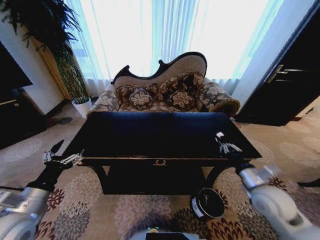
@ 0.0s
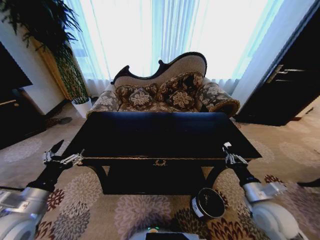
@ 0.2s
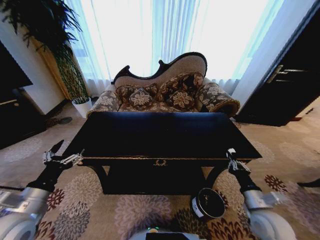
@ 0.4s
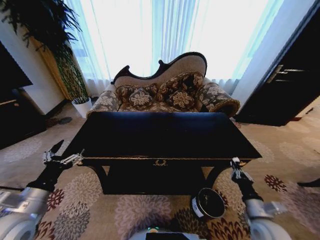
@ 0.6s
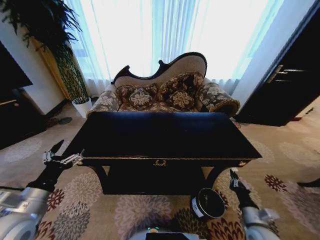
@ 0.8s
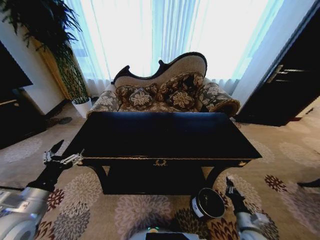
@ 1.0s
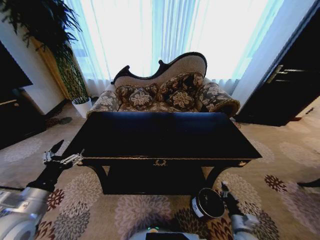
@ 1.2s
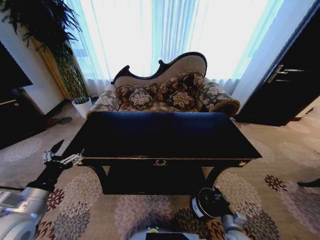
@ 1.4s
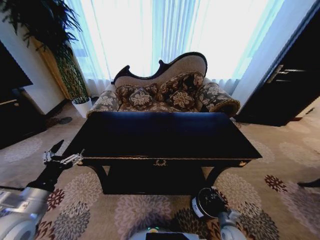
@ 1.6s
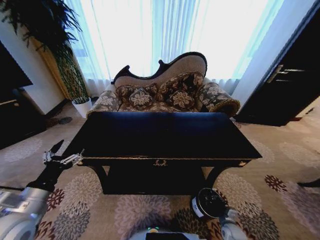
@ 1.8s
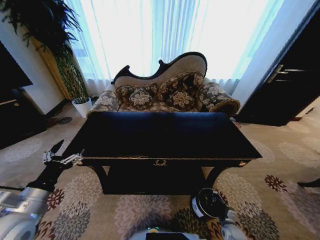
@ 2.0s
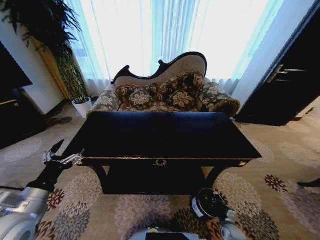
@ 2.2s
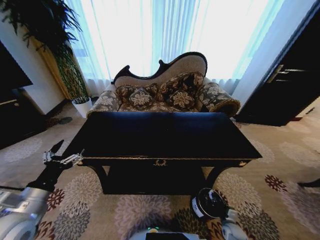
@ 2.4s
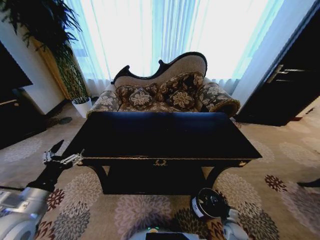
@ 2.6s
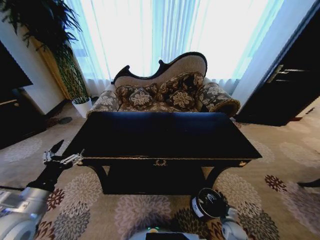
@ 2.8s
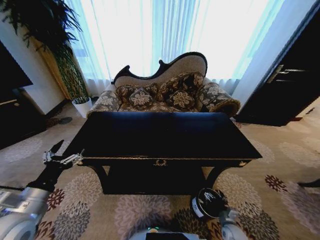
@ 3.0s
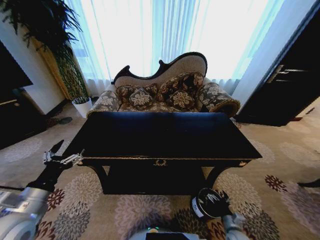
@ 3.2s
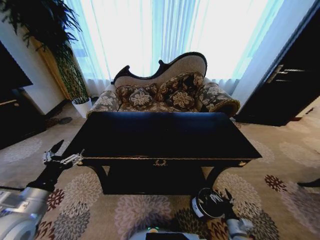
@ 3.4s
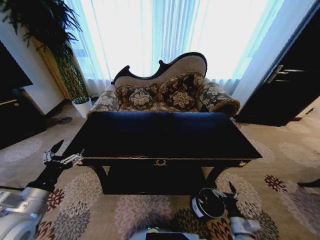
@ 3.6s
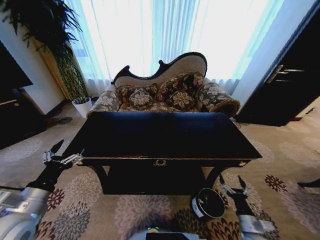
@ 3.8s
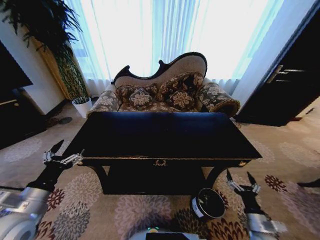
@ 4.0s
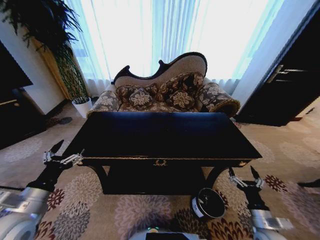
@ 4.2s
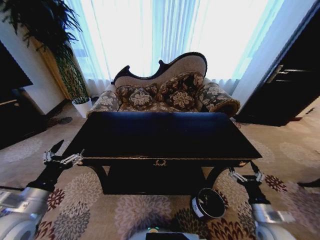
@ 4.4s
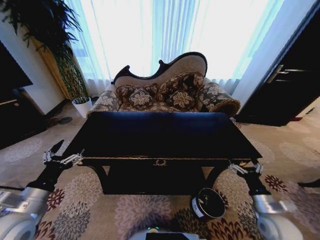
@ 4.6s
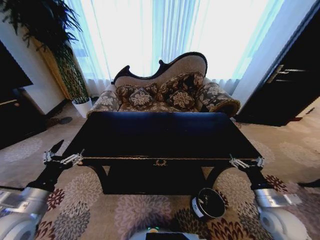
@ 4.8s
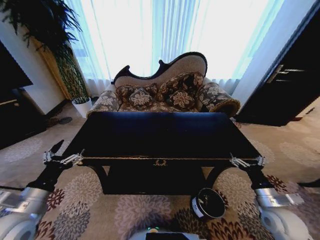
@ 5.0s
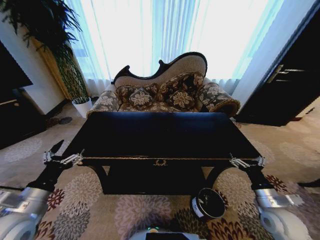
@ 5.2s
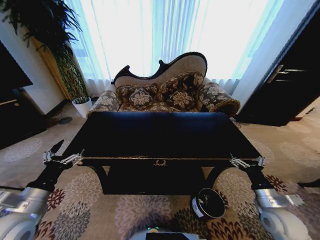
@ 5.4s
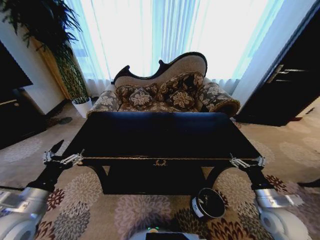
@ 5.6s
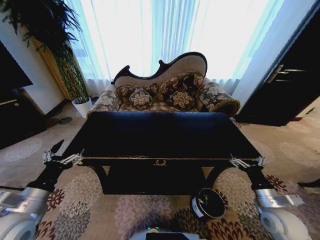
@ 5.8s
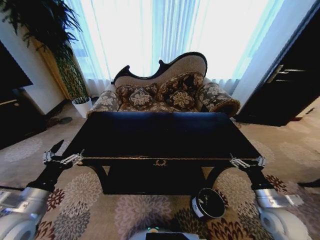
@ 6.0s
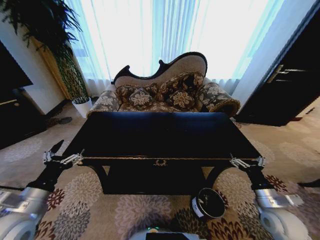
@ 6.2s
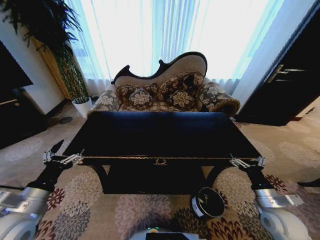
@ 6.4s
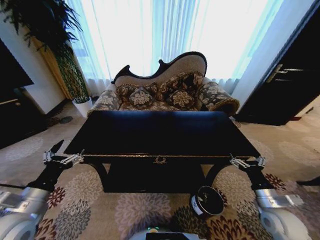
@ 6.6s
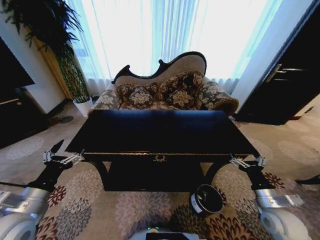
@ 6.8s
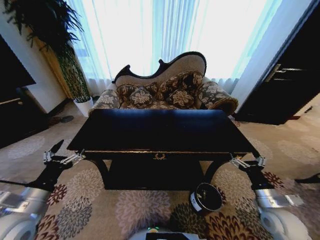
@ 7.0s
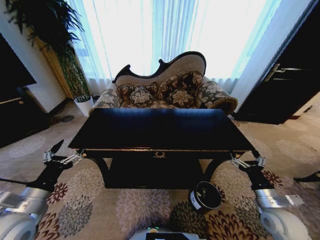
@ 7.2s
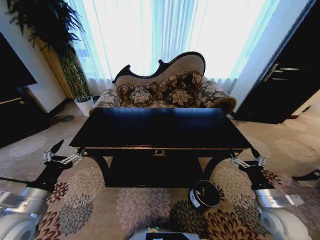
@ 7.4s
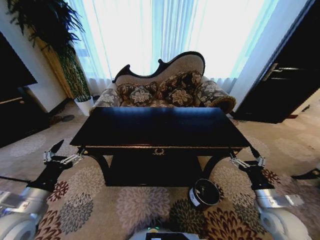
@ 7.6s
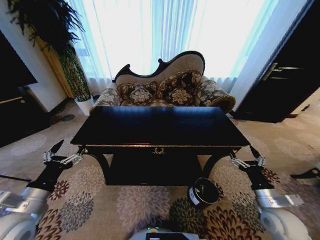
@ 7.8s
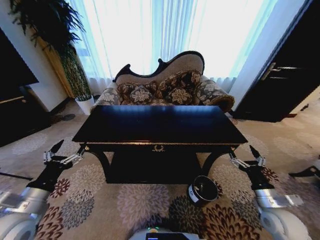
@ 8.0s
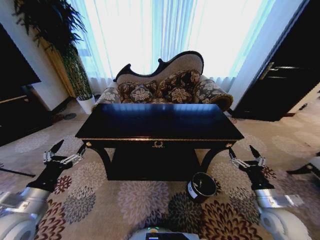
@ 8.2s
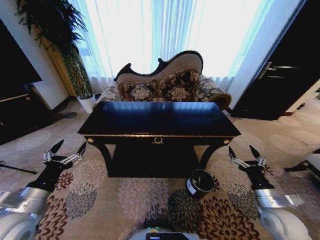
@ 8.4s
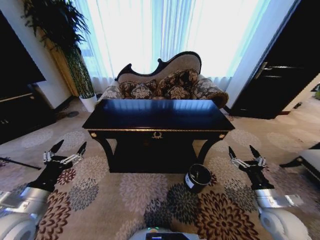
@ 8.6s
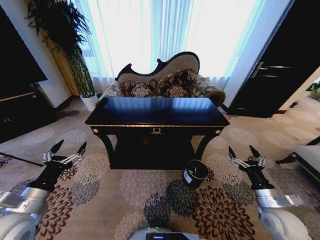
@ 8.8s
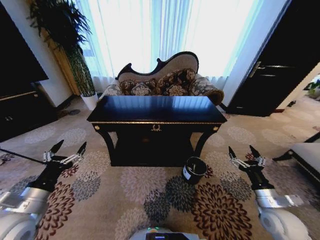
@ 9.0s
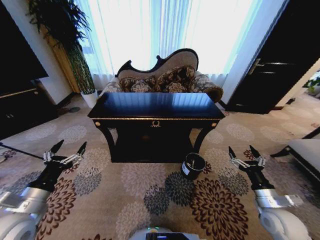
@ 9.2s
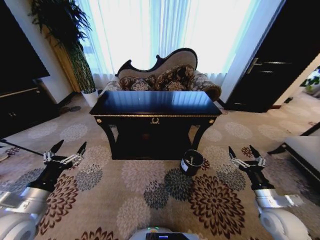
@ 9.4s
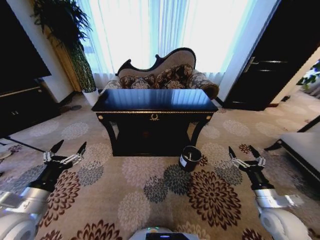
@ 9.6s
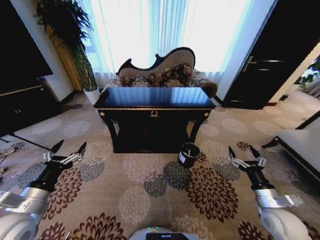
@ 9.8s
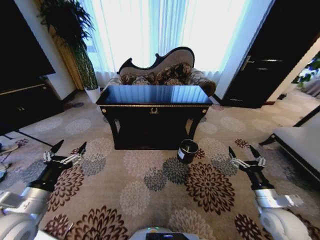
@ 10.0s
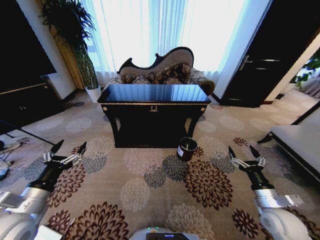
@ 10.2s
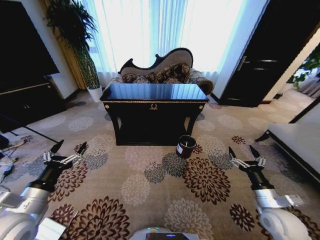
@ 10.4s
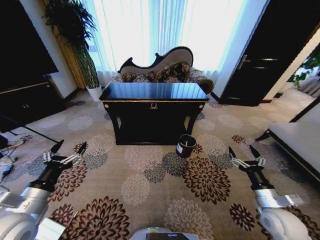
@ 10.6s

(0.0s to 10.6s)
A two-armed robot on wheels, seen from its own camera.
Task of the whole recording: Move to the front of the table and place the trash on the table into the trash bin.
0.0s - 1.6s: The right gripper shifts approximately 30 cm downward.
3.0s - 4.6s: The right gripper shifts some 20 cm upward.
4.6s - 6.0s: There are only small adjustments of the grippers.
6.0s - 7.6s: Neither gripper changes place.

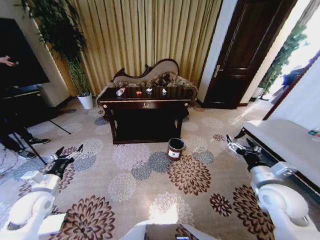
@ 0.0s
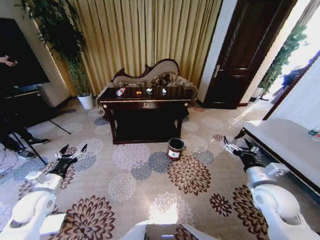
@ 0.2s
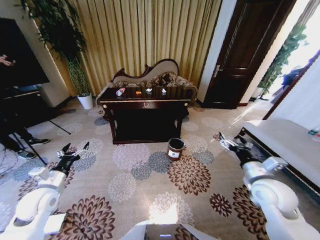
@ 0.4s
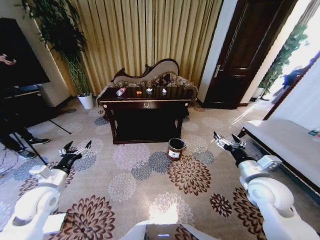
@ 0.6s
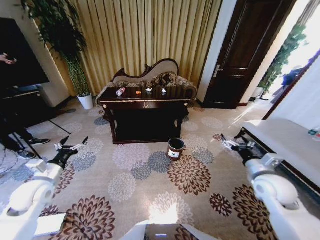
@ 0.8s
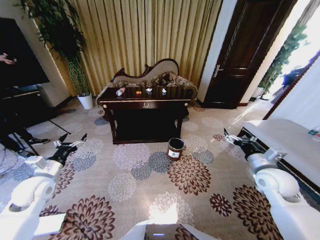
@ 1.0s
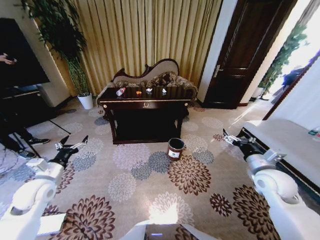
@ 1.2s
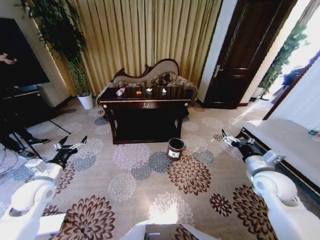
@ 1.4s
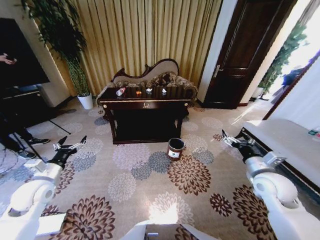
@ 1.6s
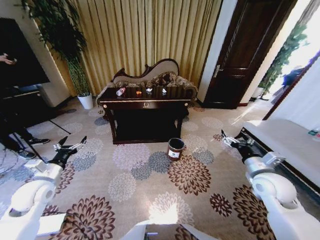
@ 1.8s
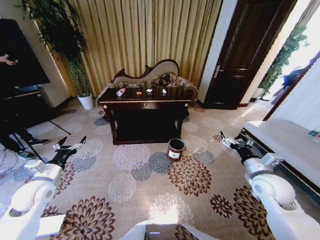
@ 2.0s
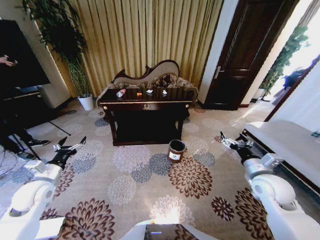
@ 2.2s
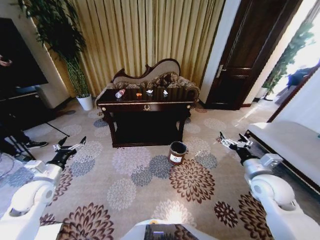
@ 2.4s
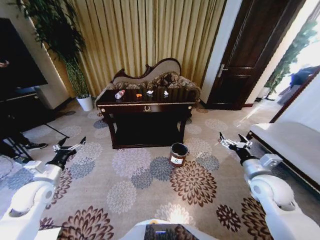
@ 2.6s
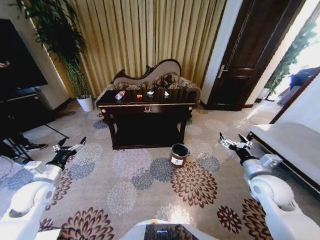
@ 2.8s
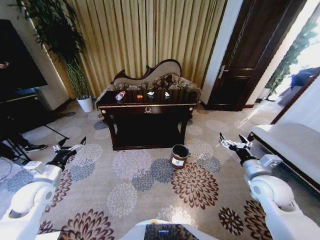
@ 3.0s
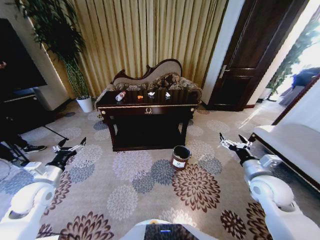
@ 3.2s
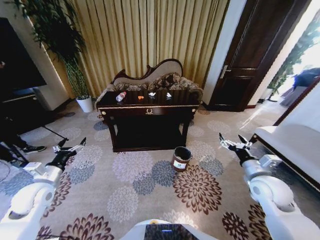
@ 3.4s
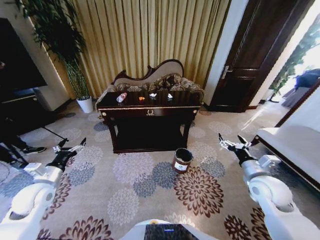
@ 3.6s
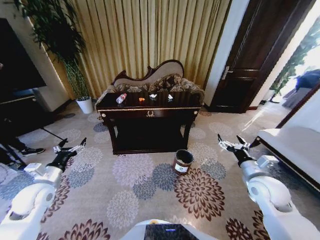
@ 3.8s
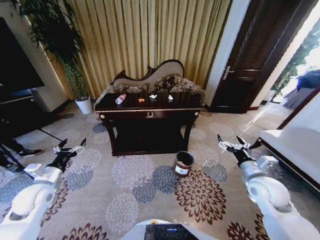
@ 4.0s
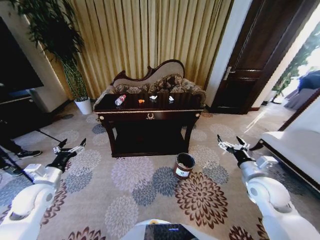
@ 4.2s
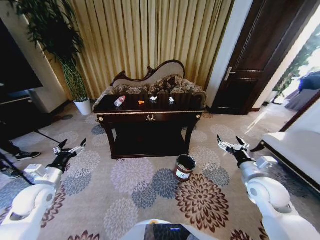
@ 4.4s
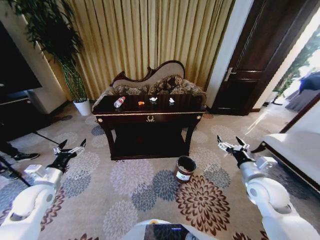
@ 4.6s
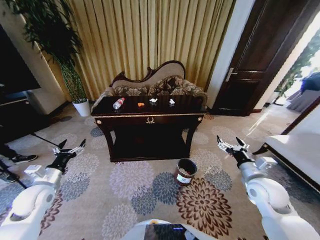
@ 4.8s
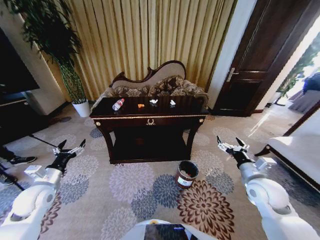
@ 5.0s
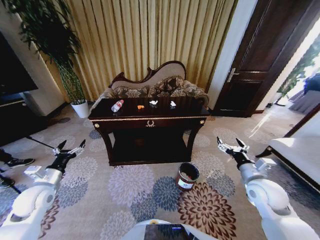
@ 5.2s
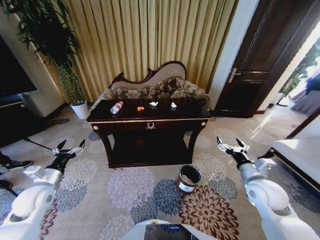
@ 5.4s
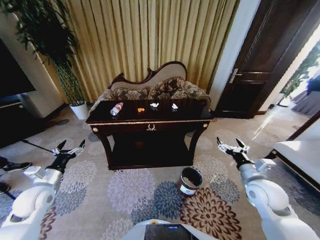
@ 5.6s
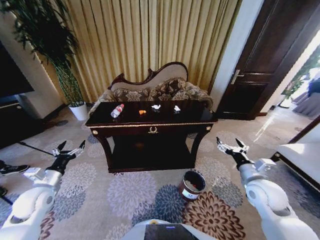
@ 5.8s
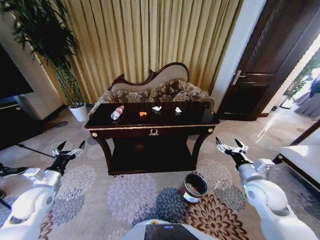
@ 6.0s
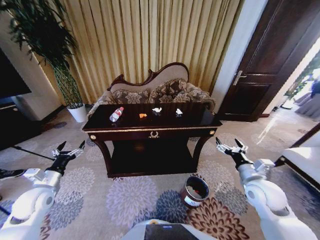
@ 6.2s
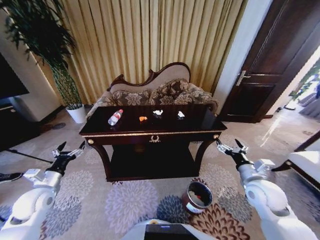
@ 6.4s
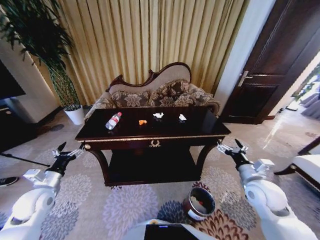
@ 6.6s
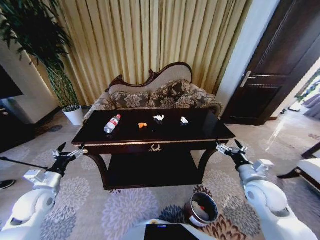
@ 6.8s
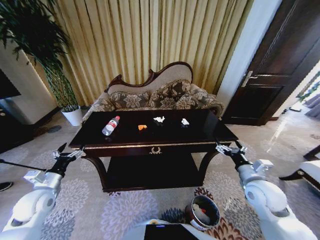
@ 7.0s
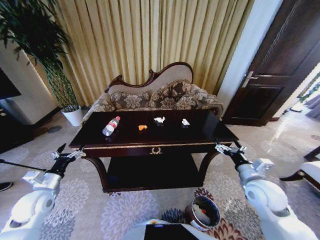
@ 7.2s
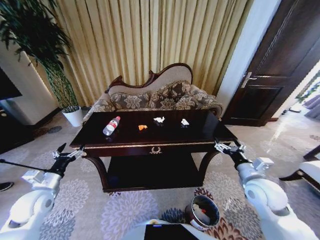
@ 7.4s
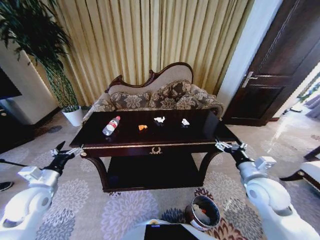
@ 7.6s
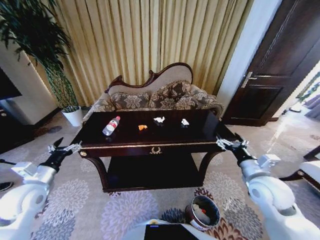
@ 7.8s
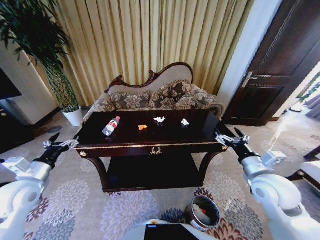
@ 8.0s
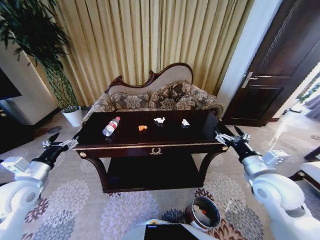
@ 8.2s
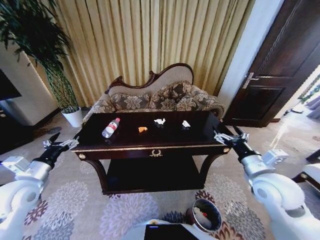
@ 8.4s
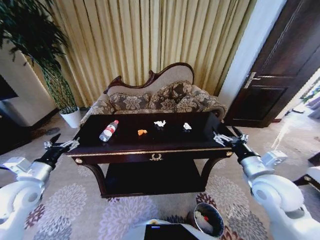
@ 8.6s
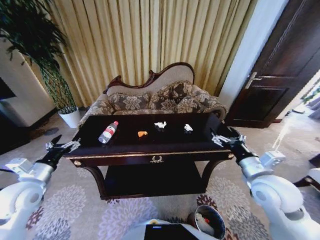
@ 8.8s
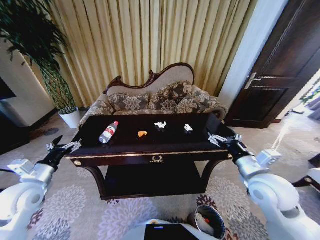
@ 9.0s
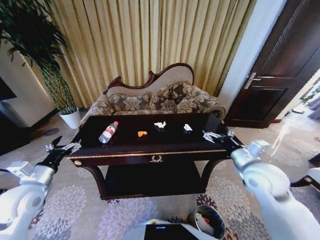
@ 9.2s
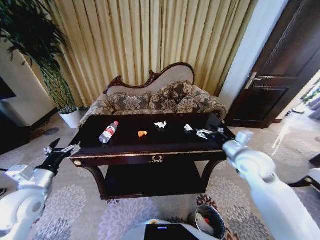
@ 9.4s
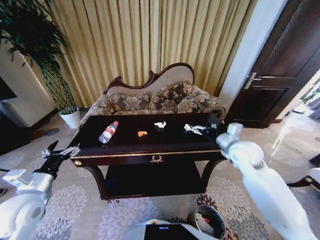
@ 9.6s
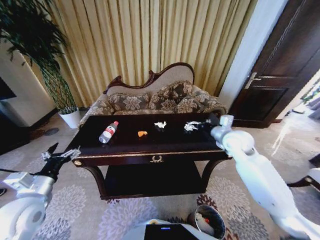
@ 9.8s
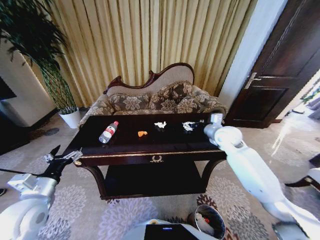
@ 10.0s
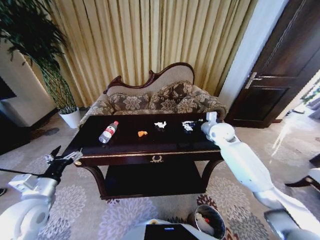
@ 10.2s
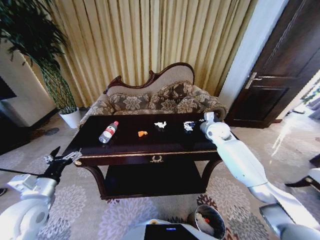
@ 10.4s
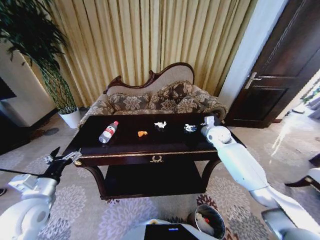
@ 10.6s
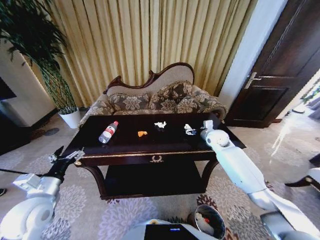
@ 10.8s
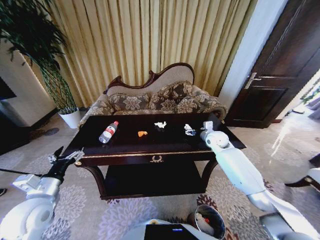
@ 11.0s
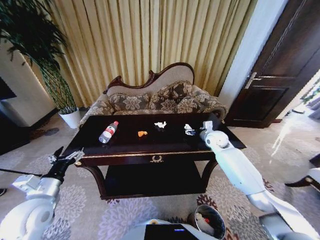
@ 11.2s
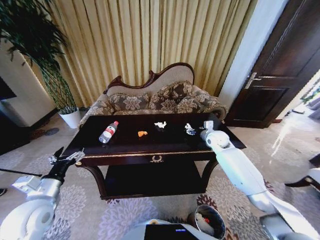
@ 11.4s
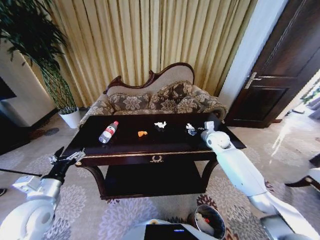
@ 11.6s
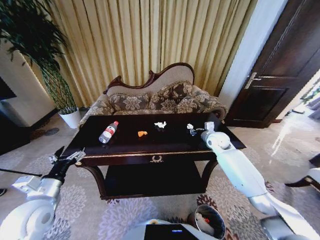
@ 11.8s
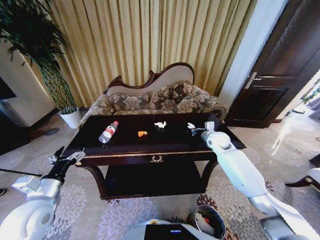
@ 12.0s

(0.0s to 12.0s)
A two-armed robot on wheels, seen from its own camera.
Task of the whole recording: Move to the front of the table and place the trash on the table into the trash bin.
7.6s - 9.0s: The right gripper goes some 5 cm upward.
9.0s - 10.4s: The right gripper travels forward by roughly 30 cm, while the left gripper changes place by roughly 5 cm.
10.4s - 12.0s: The right gripper closes up.
